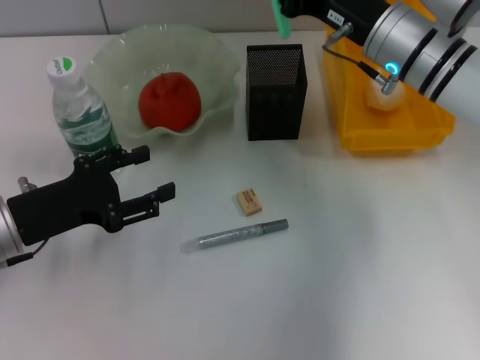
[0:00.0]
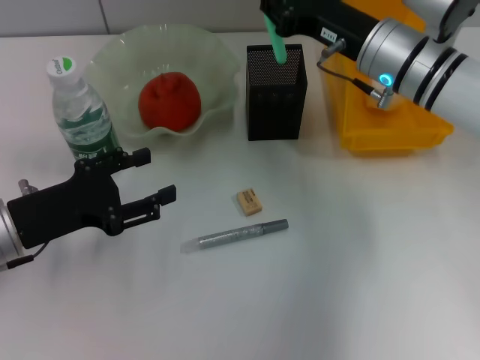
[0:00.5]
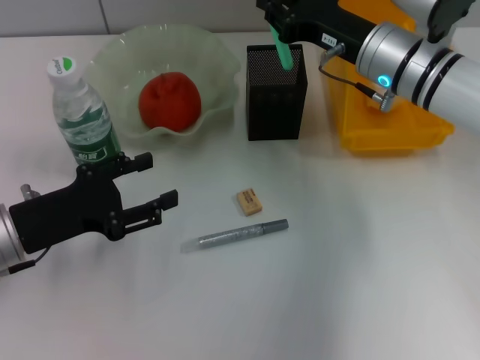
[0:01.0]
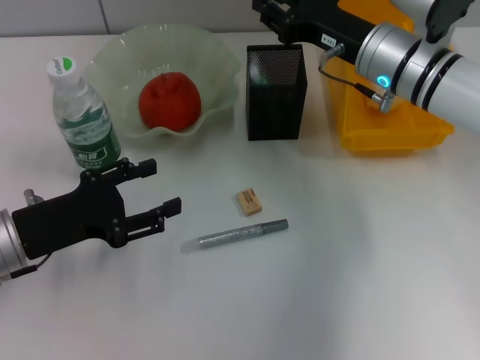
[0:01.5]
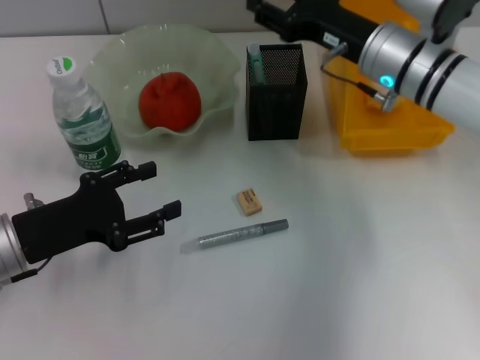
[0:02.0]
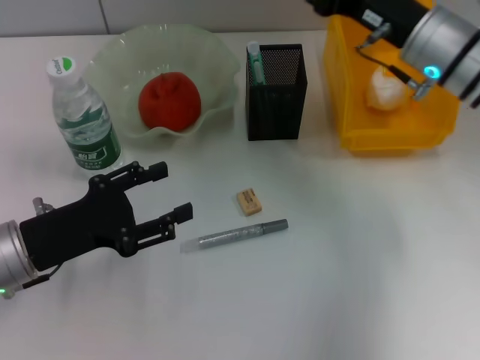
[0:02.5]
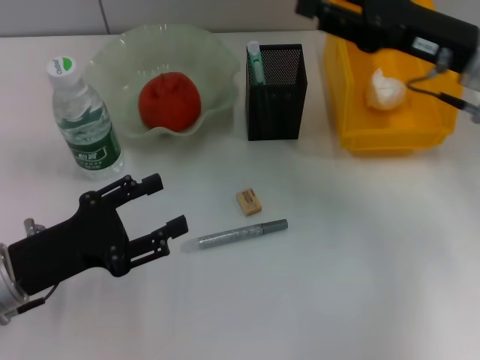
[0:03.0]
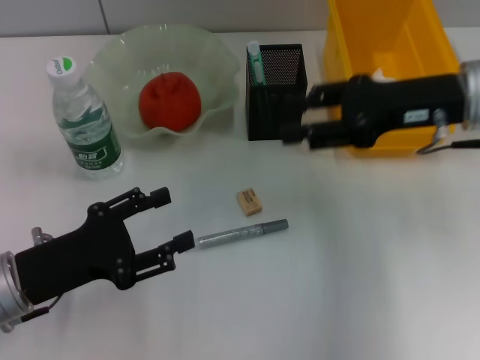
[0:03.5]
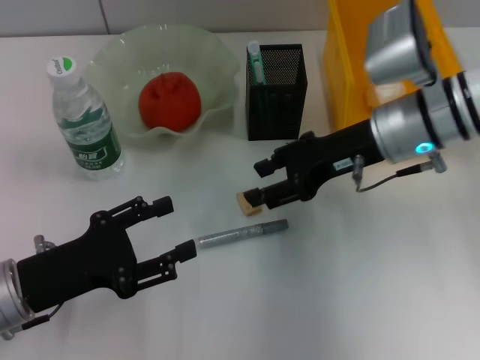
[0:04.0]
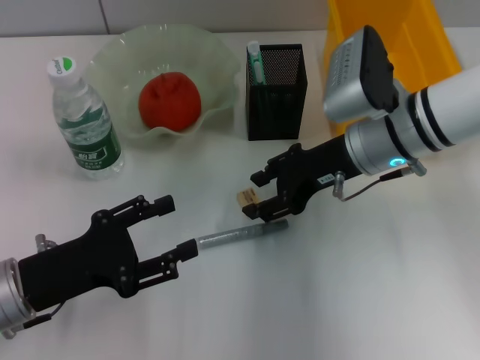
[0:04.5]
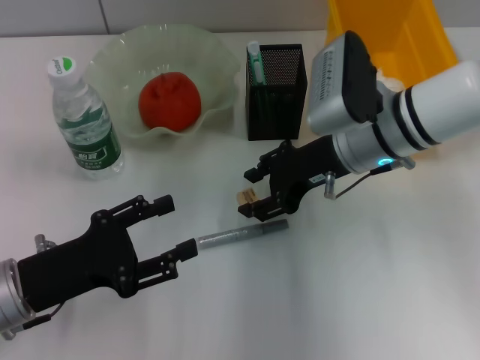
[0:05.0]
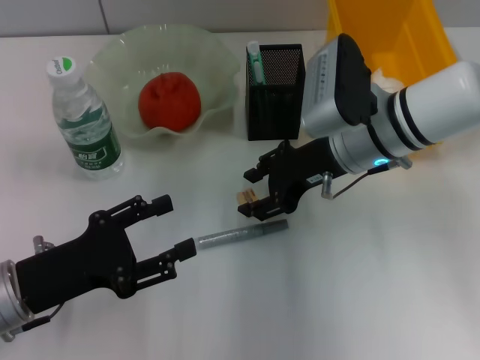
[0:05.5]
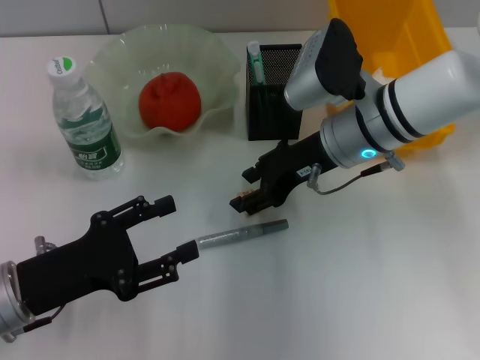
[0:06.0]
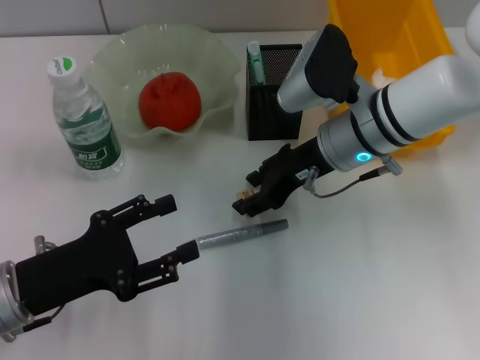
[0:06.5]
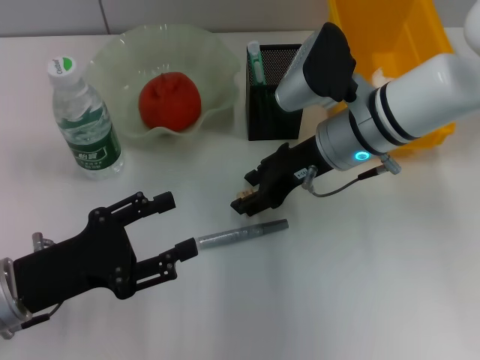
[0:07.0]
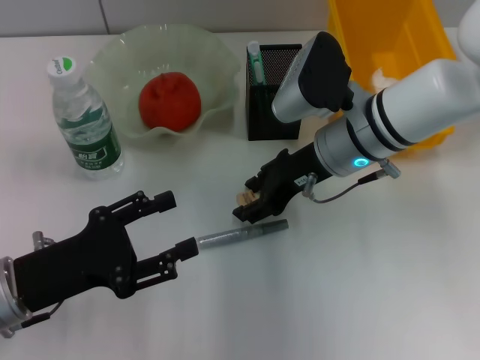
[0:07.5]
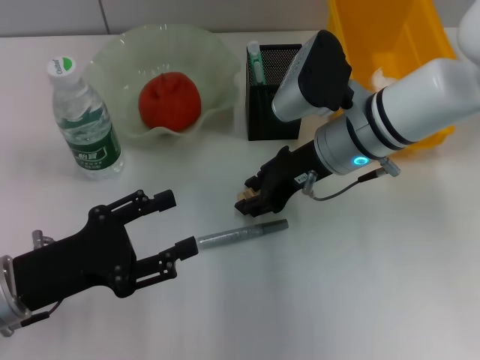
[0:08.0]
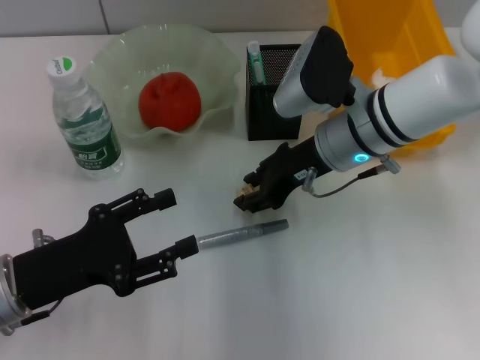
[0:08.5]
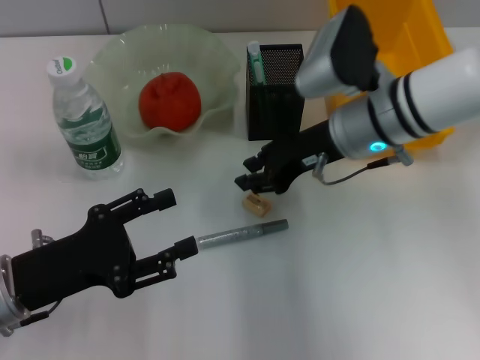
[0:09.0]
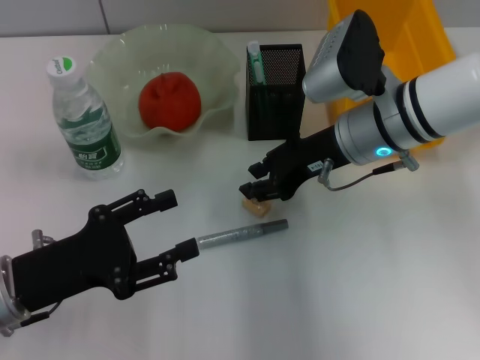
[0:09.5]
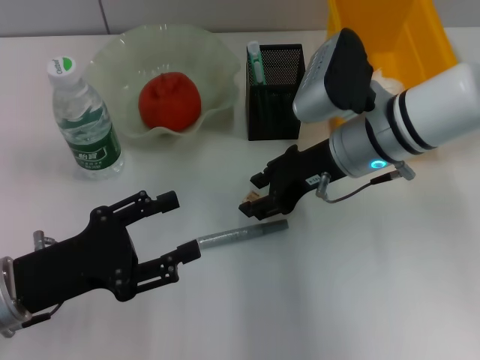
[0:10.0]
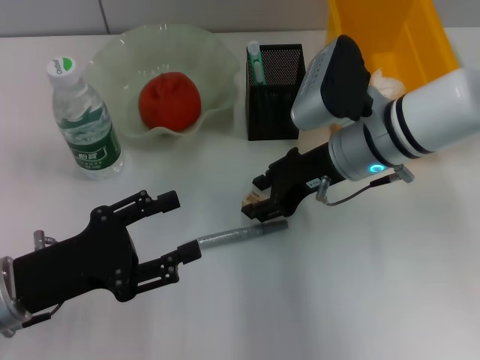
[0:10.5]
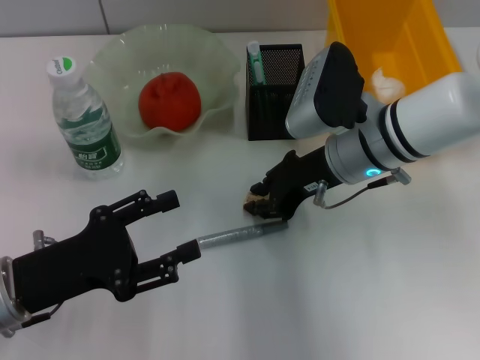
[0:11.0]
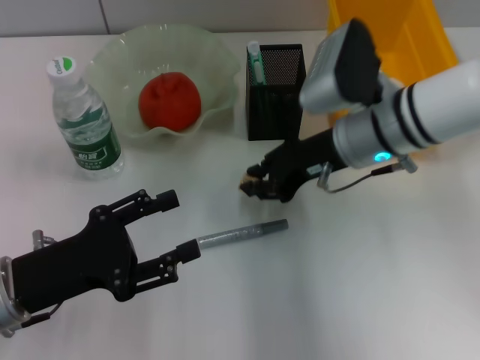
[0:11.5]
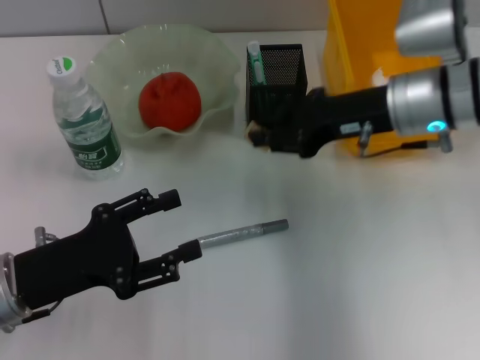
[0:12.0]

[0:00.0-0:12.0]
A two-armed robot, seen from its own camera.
Step, 0:02.0 to 0:10.5: Grab the eraser with the right hand.
0:00.0 to 0:02.0: The right gripper opens.
0:04.0 to 0:06.0: The grippers make only small movements.
0:06.0 to 0:08.0: Both grippers stay put.
0:08.0 to 0:10.0: The grippers make only small movements.
0:10.0 to 0:12.0: The right gripper is displaced to the right by approximately 5 cm, and closes its fingers.

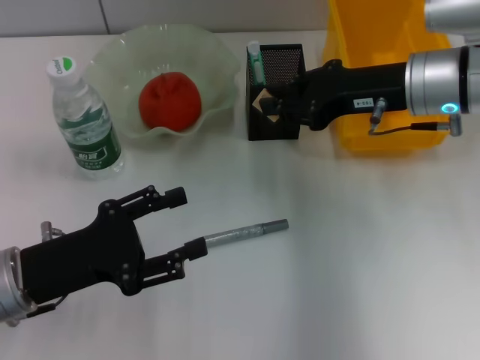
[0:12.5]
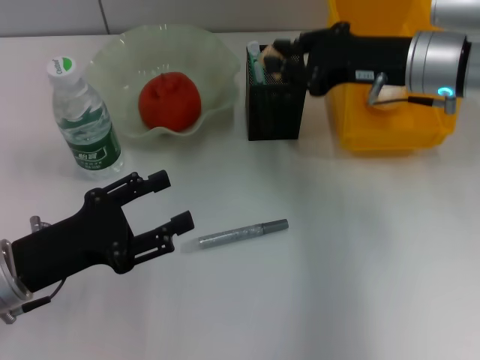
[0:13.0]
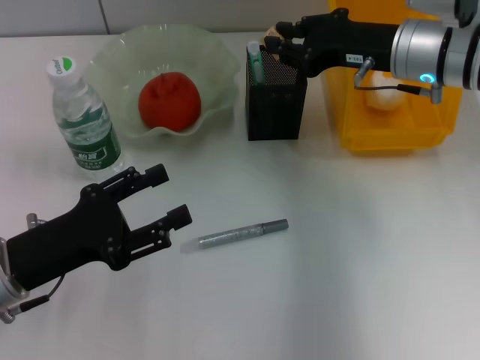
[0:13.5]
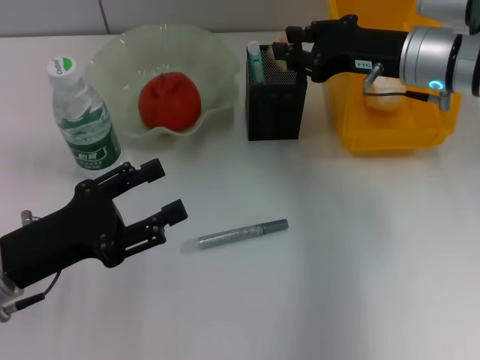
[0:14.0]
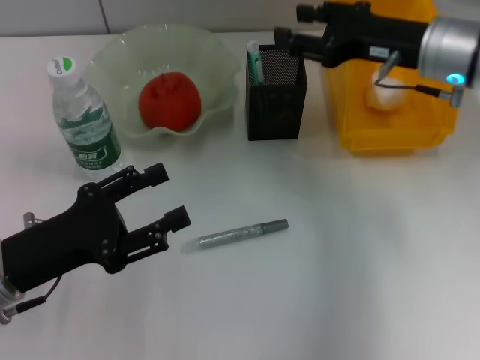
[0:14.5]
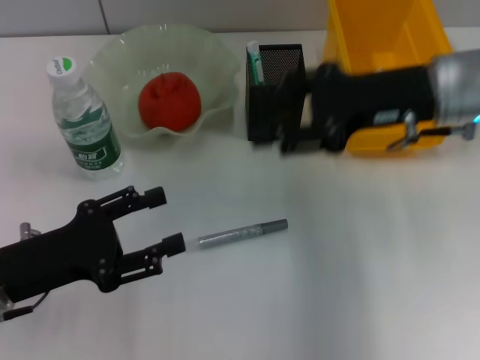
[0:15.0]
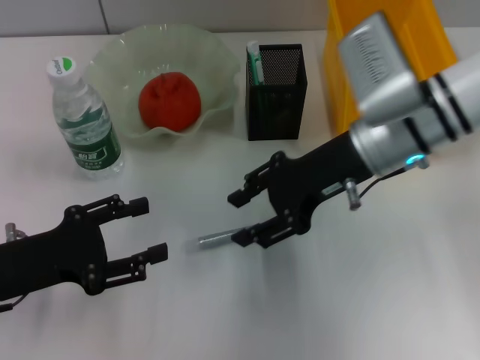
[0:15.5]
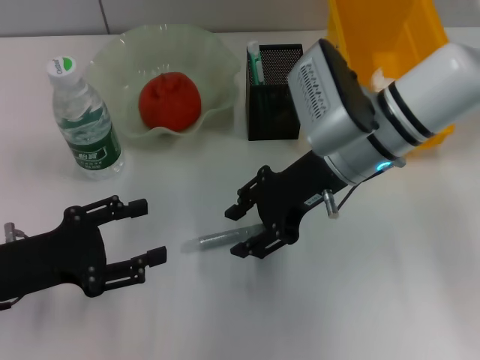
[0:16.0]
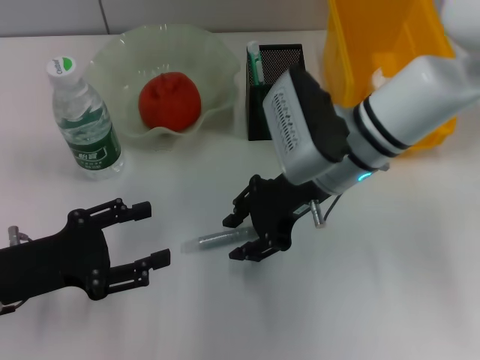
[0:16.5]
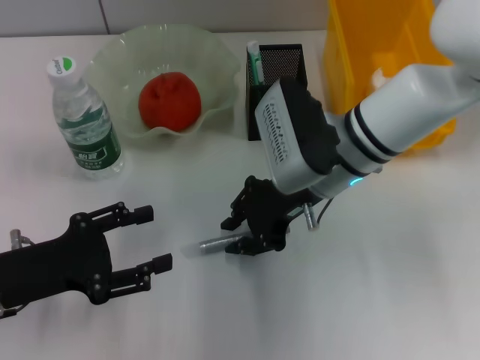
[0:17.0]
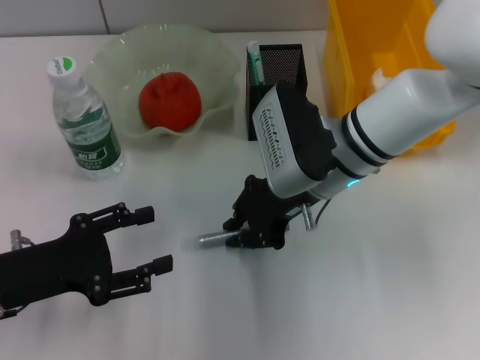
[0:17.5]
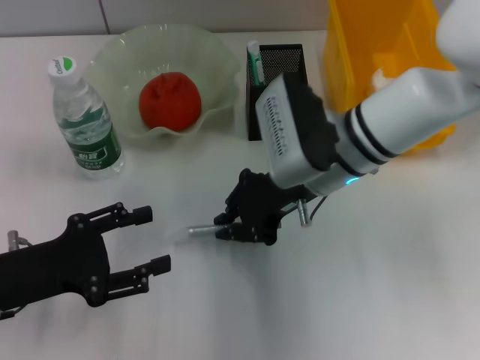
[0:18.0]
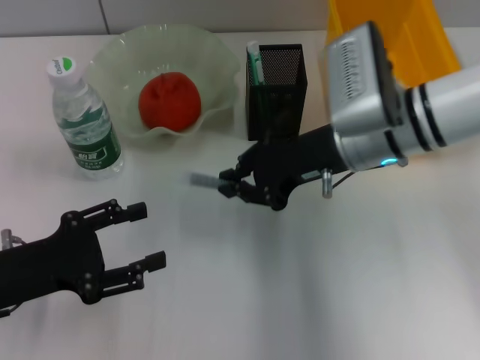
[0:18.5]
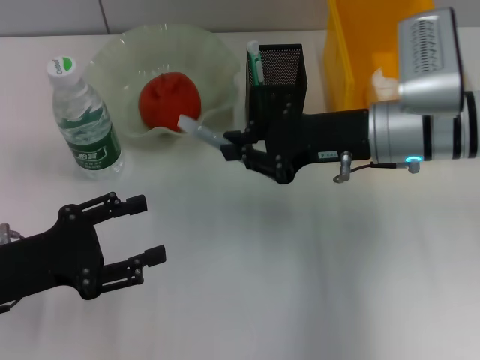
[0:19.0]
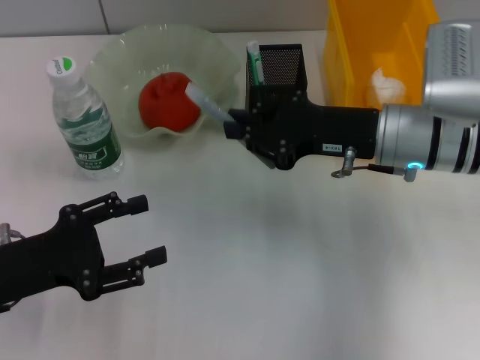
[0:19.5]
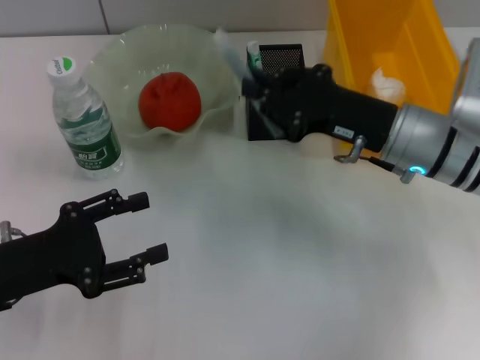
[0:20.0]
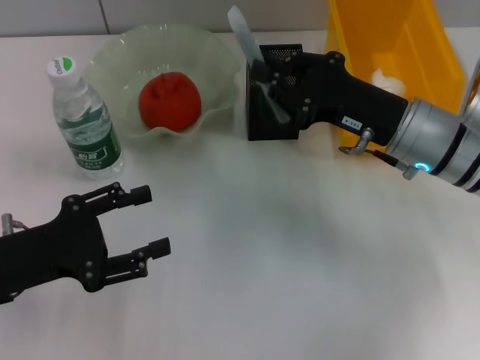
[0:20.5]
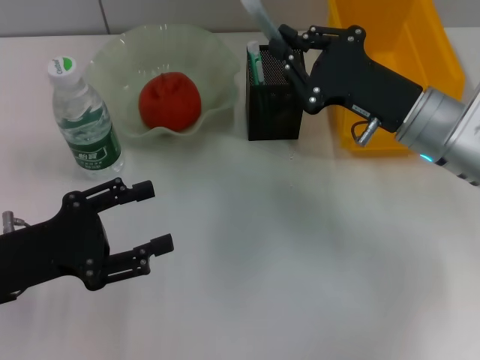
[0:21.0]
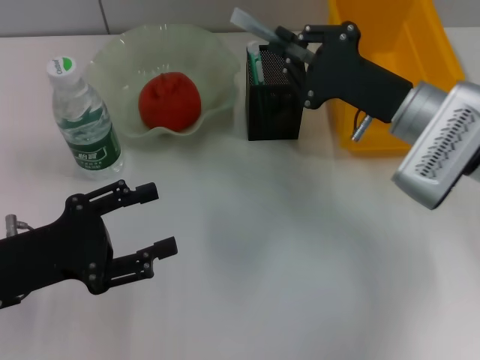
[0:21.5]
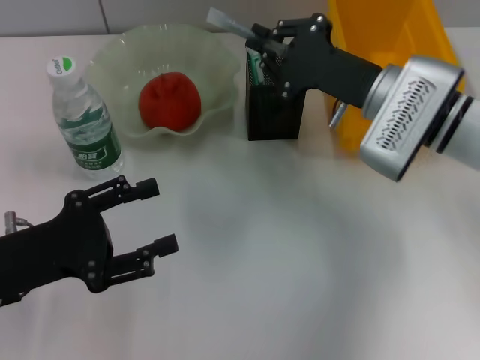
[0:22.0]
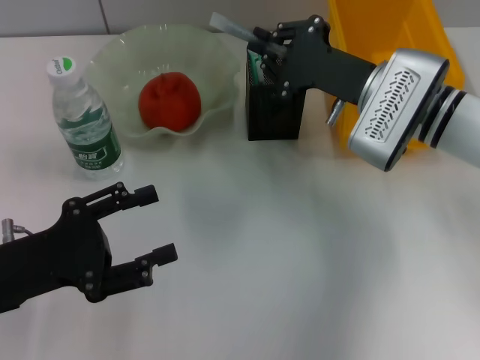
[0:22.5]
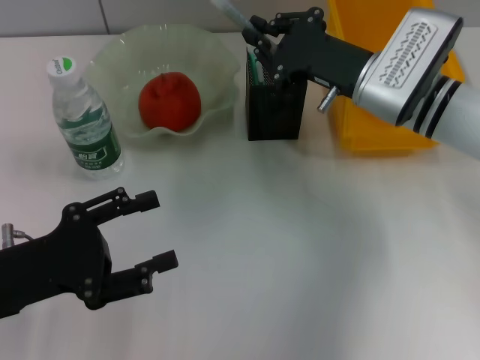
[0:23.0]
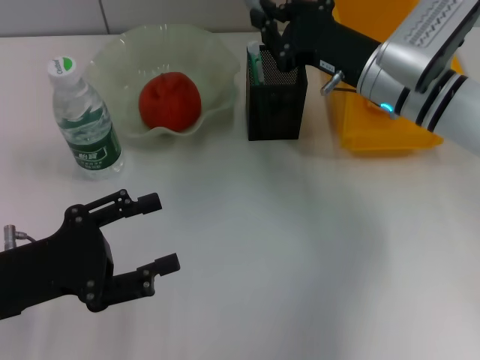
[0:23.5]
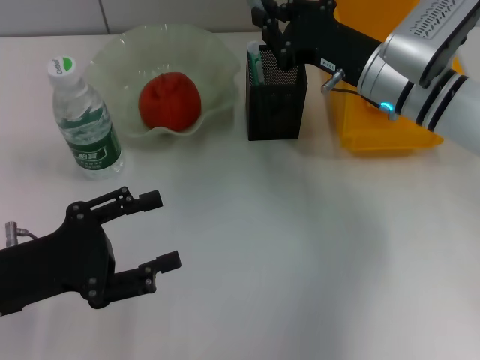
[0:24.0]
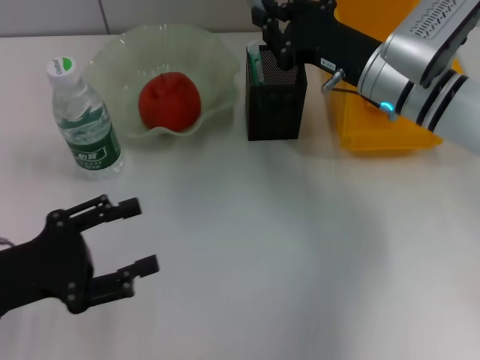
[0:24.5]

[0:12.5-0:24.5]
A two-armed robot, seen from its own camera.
Step, 0:12.5 to 0:14.5: Put the eraser into the pen holder with the right hand.
Step, 0:15.0 to 0:17.5: Grab the gray glue with the right hand.
0:12.5 to 0:14.5: The right gripper opens its fingers.
0:14.5 to 0:16.5: The right gripper travels to the left by roughly 10 cm.
0:16.5 to 0:18.5: The right gripper closes.
0:18.5 to 0:20.5: The right gripper changes place by approximately 5 cm.
0:20.5 to 0:22.5: The right gripper changes place by some 5 cm.

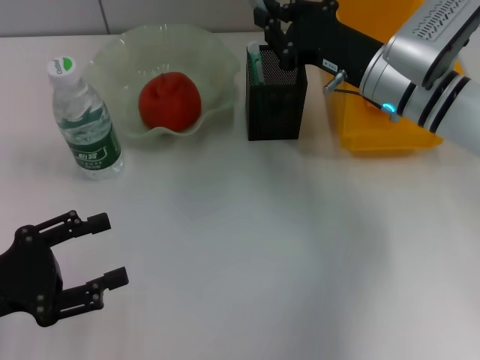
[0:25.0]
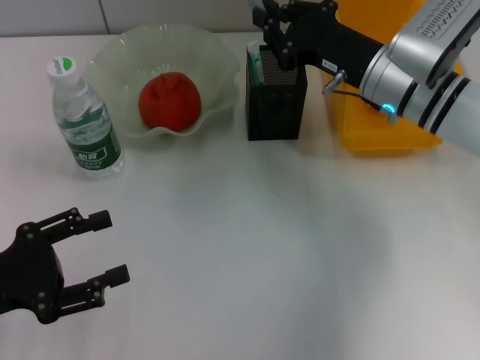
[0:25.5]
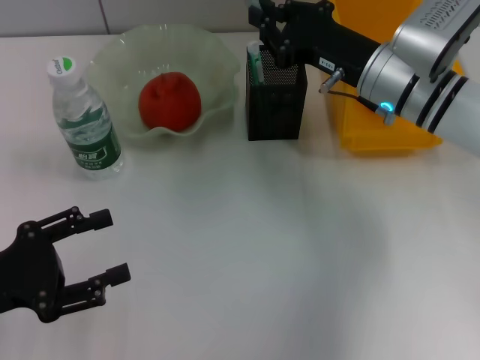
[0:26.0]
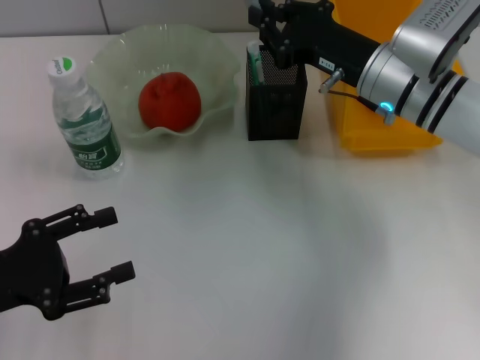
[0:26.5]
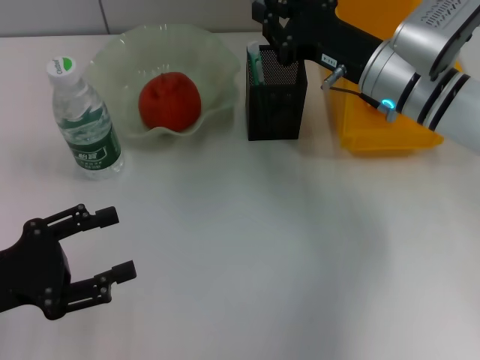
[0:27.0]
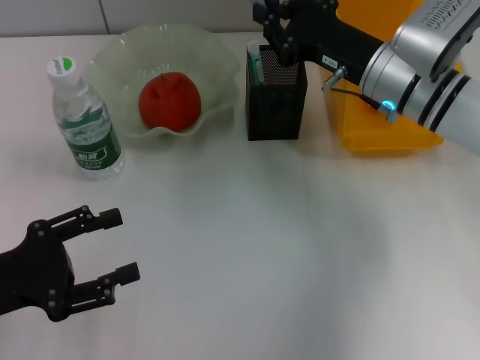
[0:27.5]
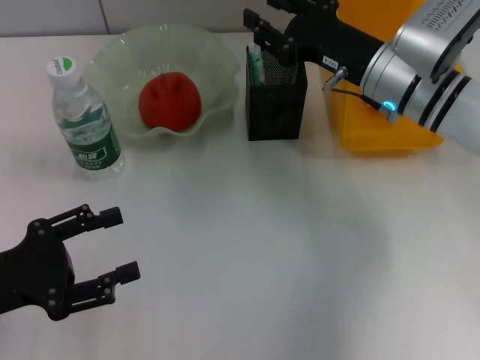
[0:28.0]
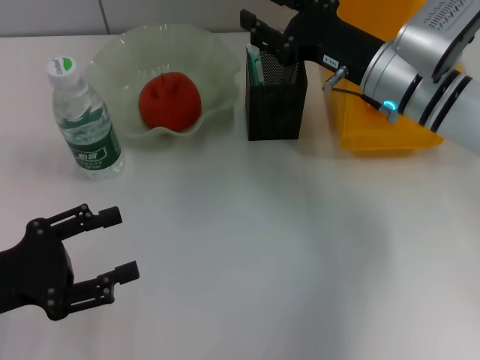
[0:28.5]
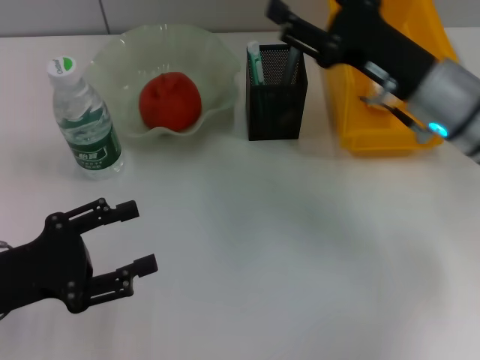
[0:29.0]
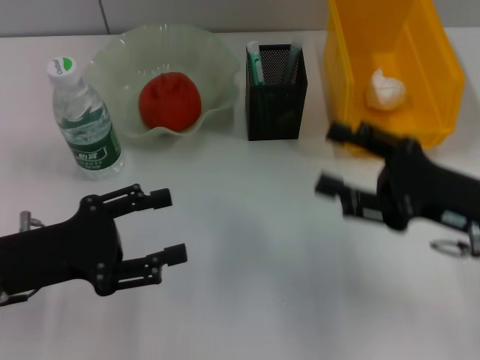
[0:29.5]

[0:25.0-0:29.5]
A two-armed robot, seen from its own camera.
Step, 0:25.0 to 0:28.0: Place the gray glue into the pen holder with the right hand.
0:25.0 to 0:27.0: The grippers make only small movements.
0:27.0 to 0:29.5: The left gripper ends up approximately 5 cm from where it was. The right gripper moves backward and to the right, about 15 cm, and opens.
